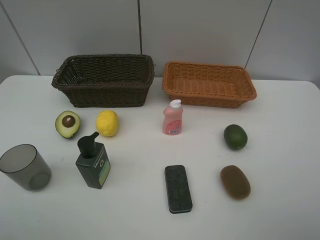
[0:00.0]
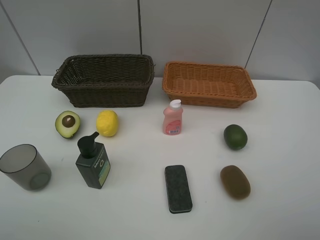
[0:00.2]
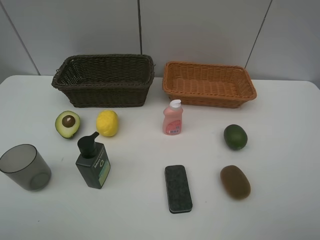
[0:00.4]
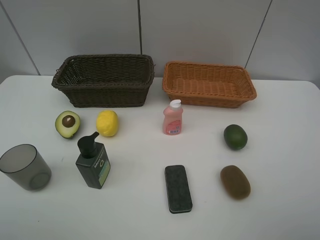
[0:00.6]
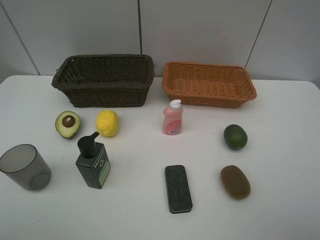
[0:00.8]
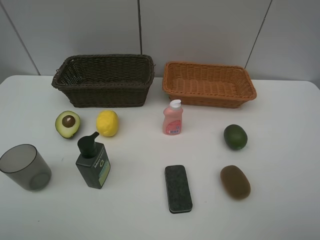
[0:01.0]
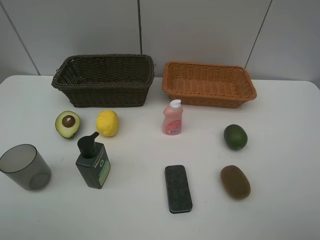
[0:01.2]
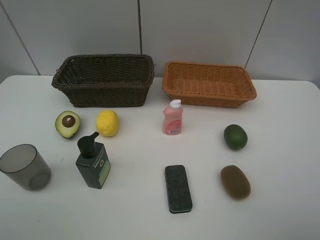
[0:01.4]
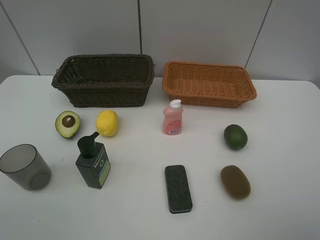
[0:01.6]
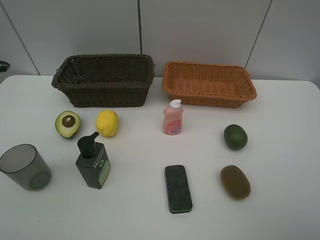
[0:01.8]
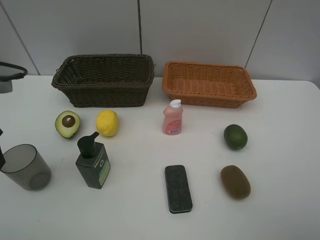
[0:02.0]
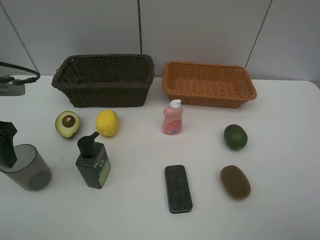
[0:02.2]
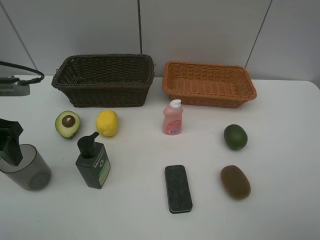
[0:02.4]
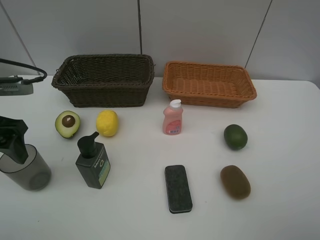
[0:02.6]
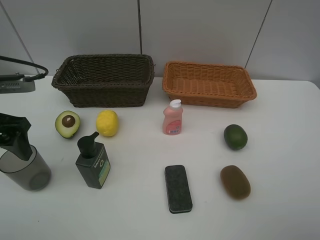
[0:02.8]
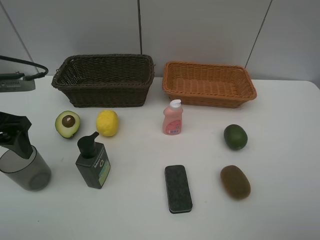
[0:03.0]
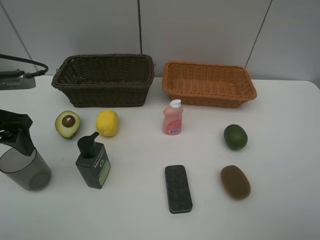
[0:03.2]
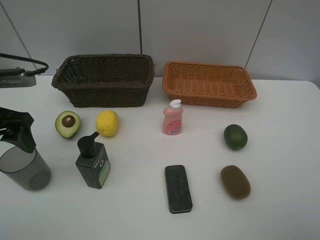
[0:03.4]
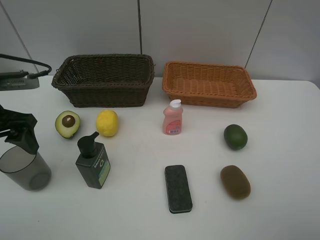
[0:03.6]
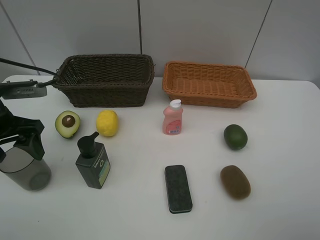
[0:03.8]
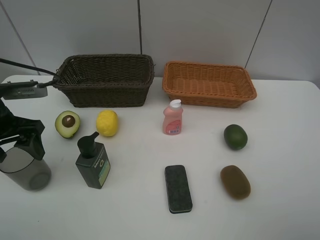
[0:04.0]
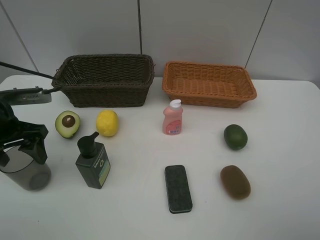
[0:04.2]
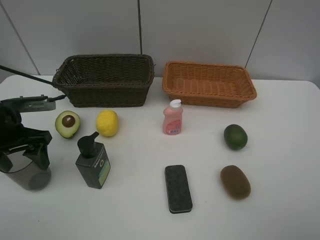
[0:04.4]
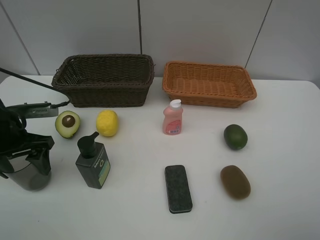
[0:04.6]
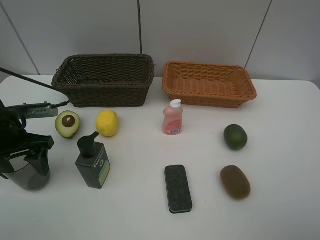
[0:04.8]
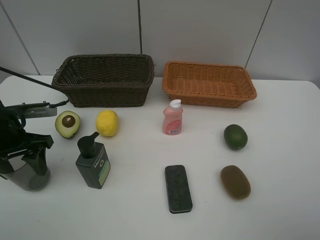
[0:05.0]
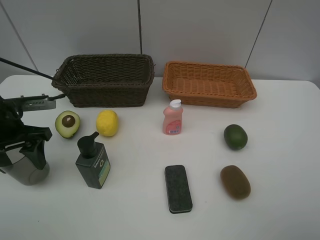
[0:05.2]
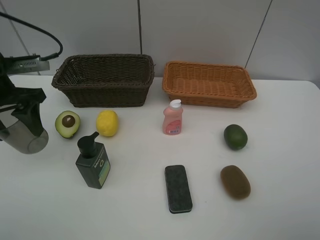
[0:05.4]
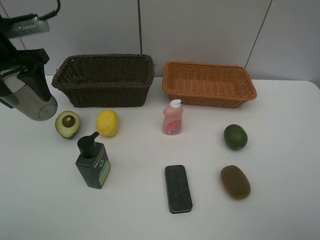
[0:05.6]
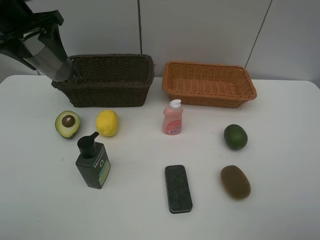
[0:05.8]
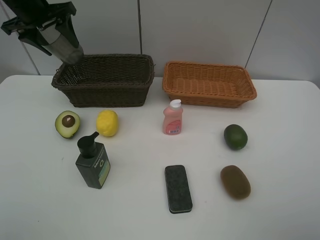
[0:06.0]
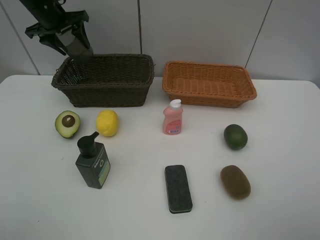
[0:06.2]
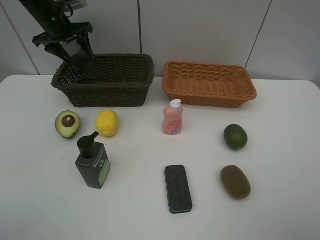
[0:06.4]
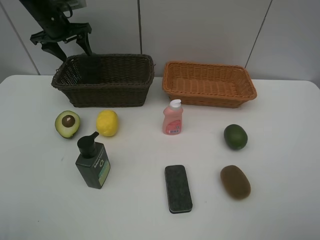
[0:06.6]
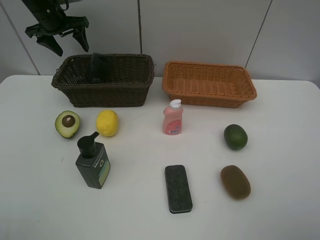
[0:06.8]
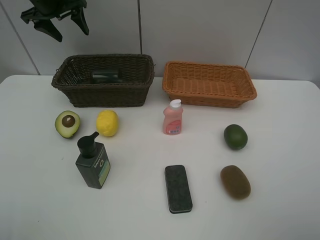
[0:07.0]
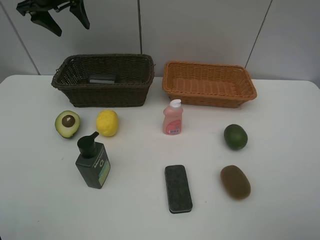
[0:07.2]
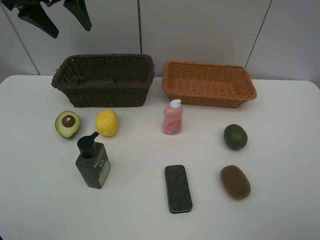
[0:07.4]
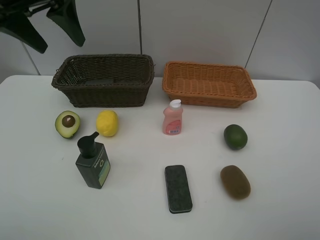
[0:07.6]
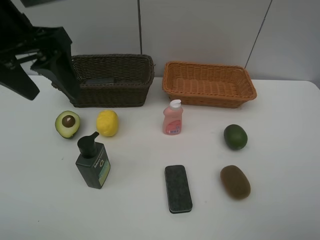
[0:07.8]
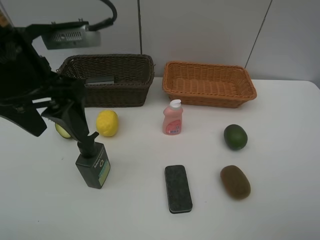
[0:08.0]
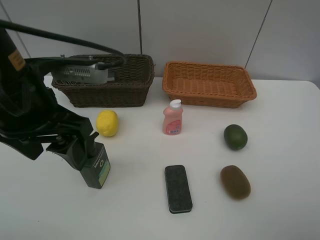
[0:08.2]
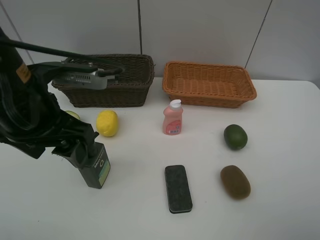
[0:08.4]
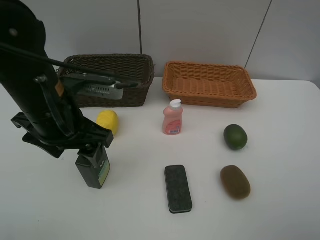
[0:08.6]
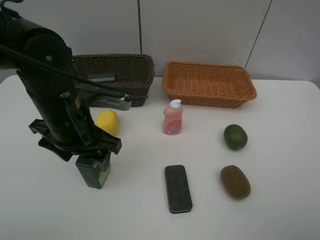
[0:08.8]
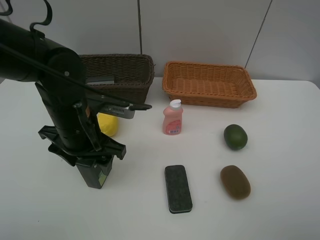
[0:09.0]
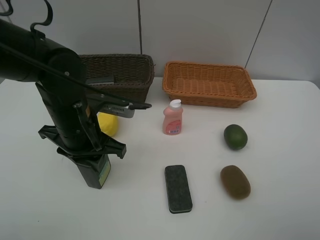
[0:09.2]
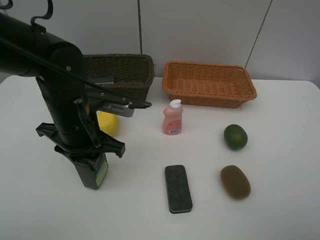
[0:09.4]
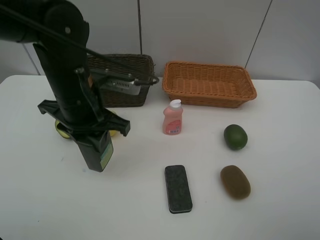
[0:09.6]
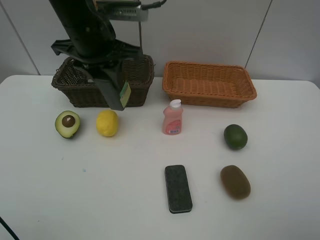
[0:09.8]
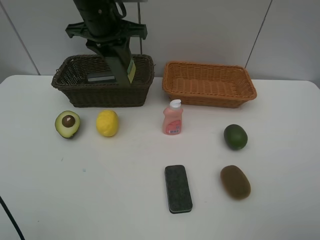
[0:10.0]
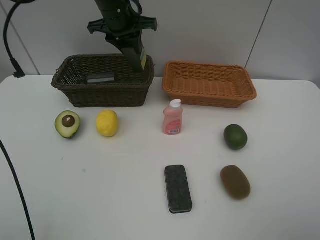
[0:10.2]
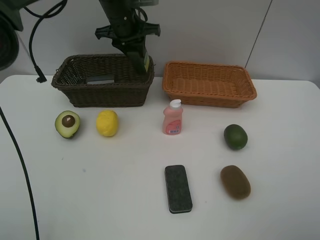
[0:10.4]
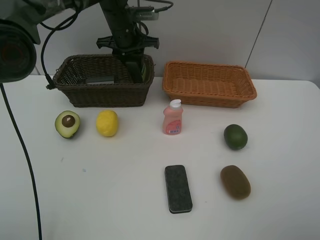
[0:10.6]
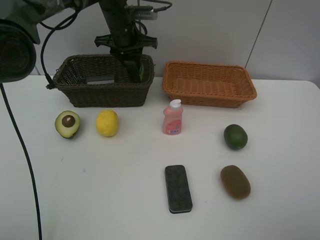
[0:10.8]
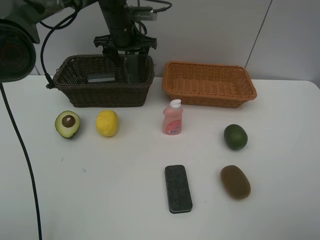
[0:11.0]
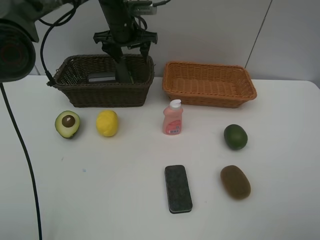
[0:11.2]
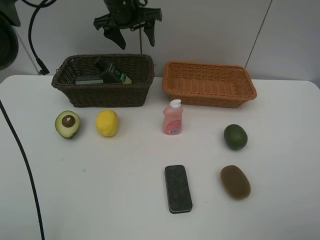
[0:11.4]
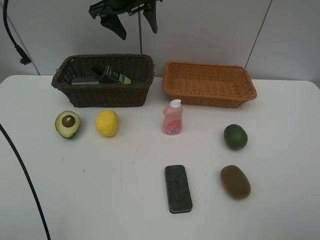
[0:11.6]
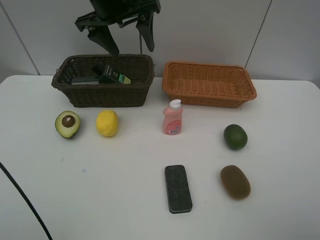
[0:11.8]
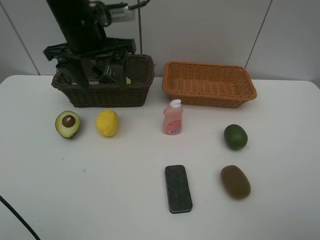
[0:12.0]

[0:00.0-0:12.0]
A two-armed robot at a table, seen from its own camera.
Task of the whole recording: Place multiple objects separately in different baskets.
Step, 0:00.0 to 0:05.2: Pick up gray cup with left gripper.
Step, 0:05.4 to 0:06.6: Place the gray cup in the dark basket with left gripper.
Step, 0:06.8 to 0:09.6: Pick up the hard facial cleanser with left gripper.
Step, 0:09.8 to 0:11.2: Place the hard facial cleanser in the dark basket with left gripper.
0:01.6 to 0:03.0: The left gripper is displaced forward and downward by approximately 10 cm.
0:03.0 to 0:04.4: The left gripper moves downward, approximately 5 cm.
0:04.4 to 0:06.0: The left gripper travels forward and upward by some 25 cm.
0:06.0 to 0:07.6: The left gripper travels backward, upward and to the right by about 15 cm.
0:07.6 to 0:09.0: The left gripper travels downward, to the right and backward by some 20 cm.
0:09.0 to 0:10.4: The left gripper is displaced forward by roughly 25 cm, and closes its fingers.
0:10.4 to 0:12.0: The left gripper travels backward by about 15 cm, and opens up.

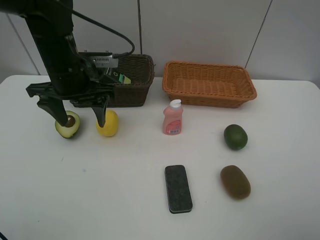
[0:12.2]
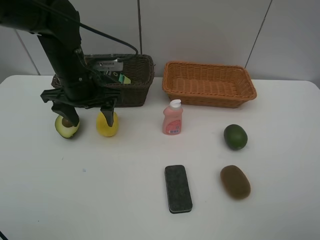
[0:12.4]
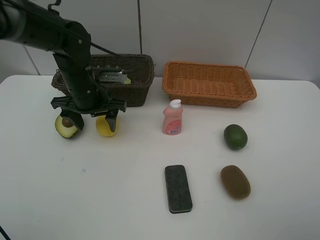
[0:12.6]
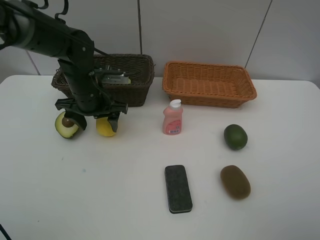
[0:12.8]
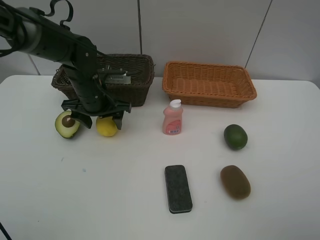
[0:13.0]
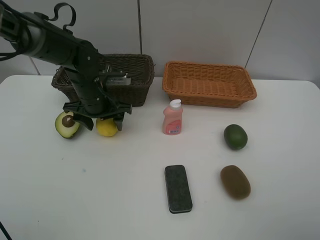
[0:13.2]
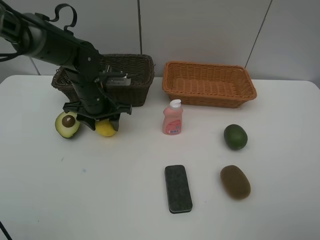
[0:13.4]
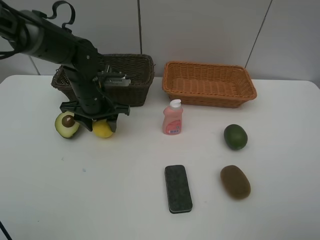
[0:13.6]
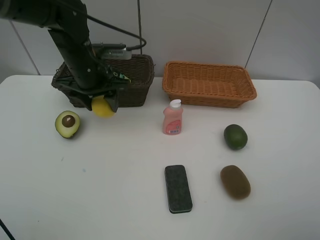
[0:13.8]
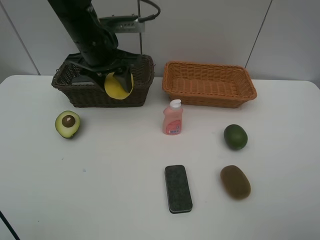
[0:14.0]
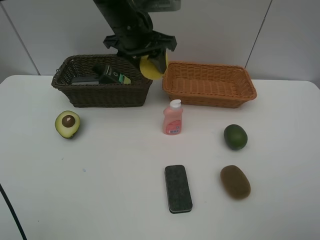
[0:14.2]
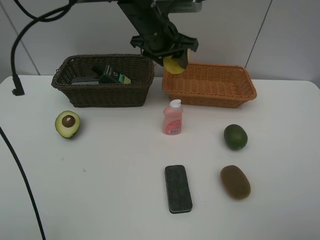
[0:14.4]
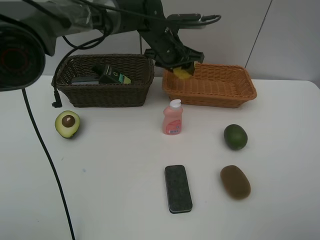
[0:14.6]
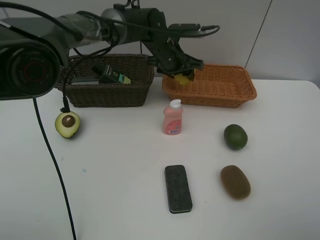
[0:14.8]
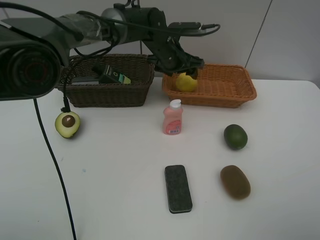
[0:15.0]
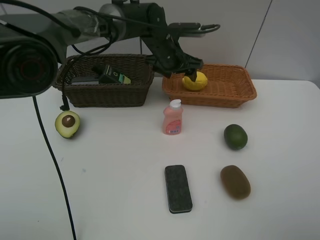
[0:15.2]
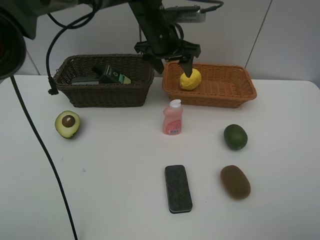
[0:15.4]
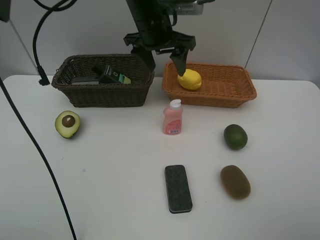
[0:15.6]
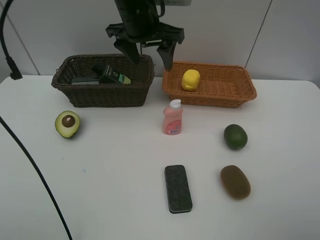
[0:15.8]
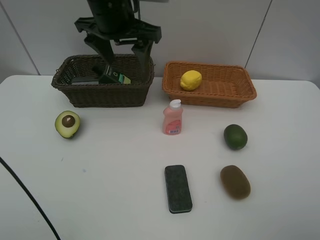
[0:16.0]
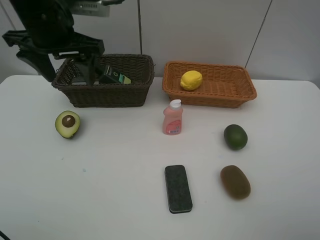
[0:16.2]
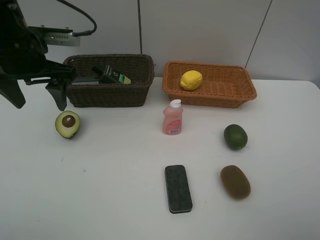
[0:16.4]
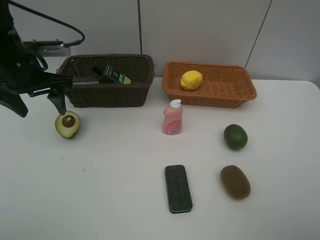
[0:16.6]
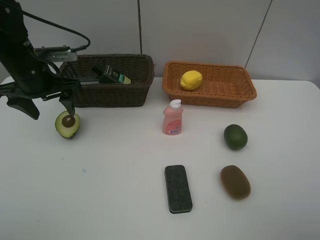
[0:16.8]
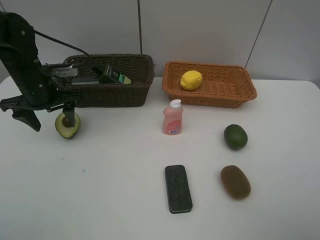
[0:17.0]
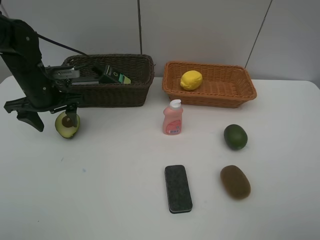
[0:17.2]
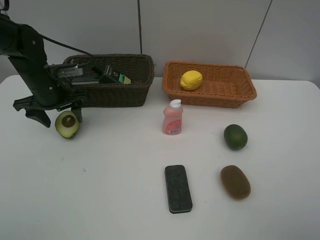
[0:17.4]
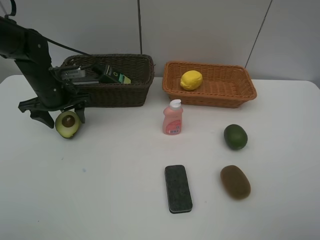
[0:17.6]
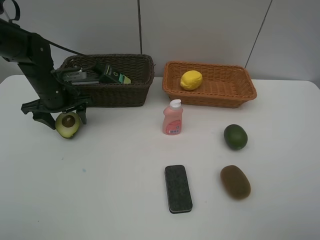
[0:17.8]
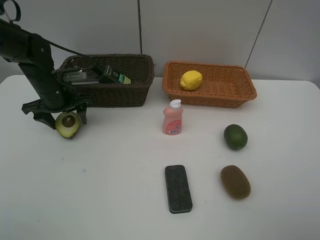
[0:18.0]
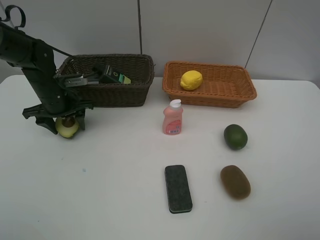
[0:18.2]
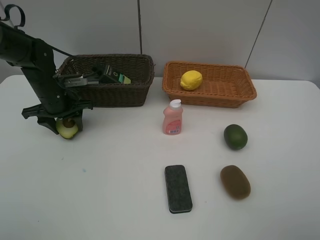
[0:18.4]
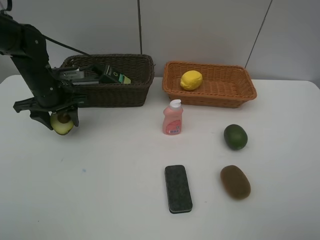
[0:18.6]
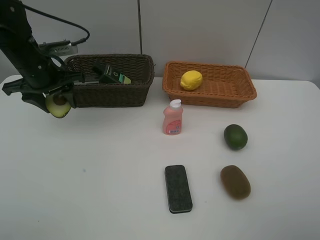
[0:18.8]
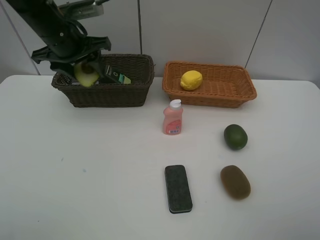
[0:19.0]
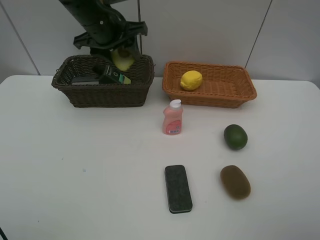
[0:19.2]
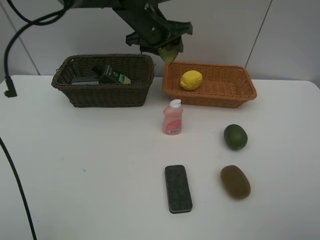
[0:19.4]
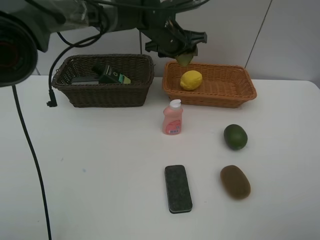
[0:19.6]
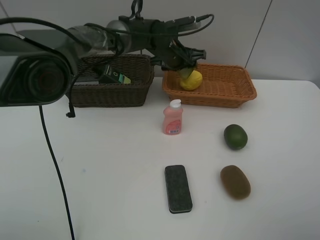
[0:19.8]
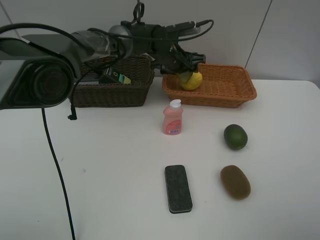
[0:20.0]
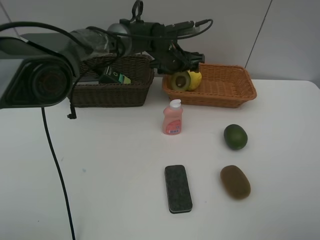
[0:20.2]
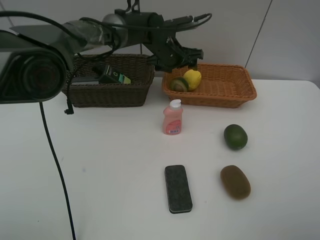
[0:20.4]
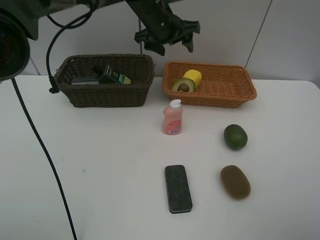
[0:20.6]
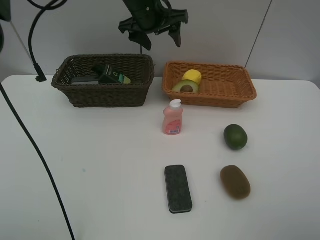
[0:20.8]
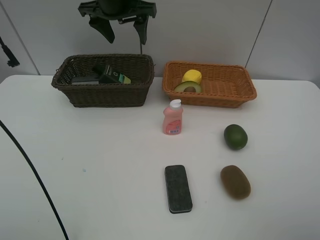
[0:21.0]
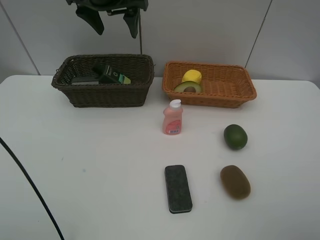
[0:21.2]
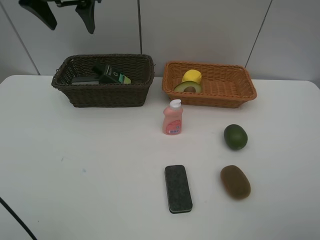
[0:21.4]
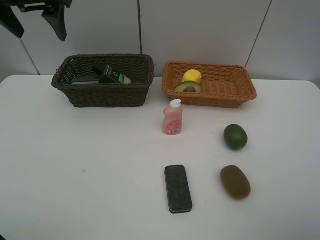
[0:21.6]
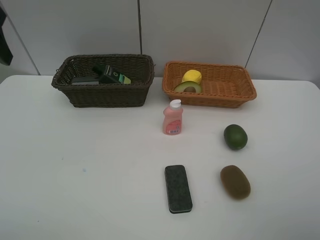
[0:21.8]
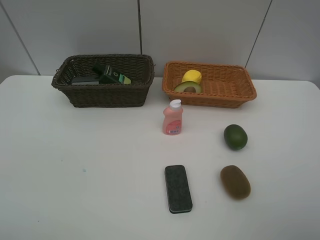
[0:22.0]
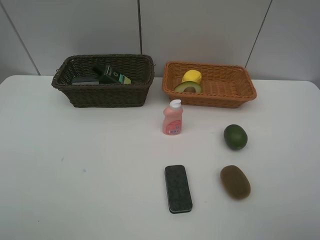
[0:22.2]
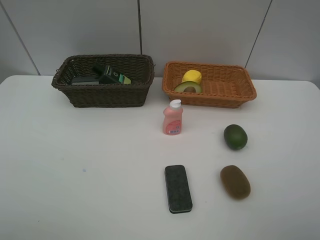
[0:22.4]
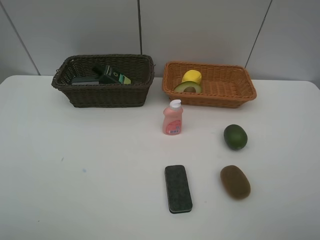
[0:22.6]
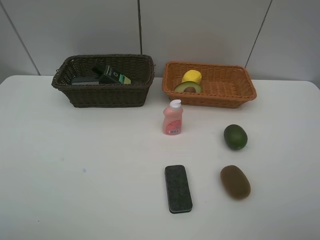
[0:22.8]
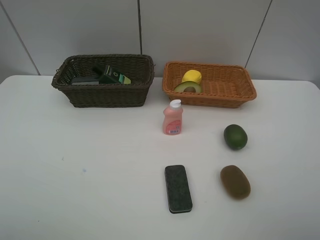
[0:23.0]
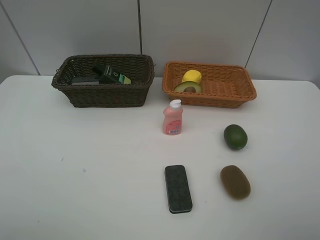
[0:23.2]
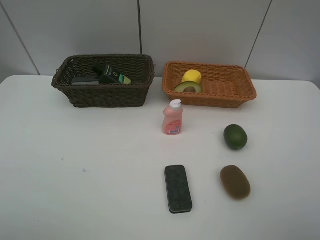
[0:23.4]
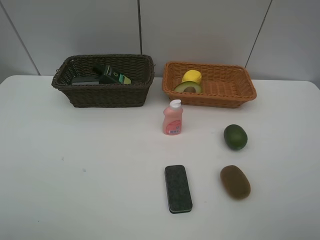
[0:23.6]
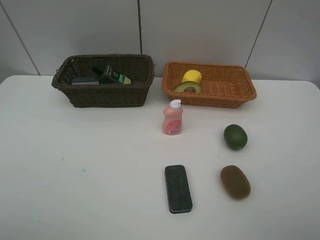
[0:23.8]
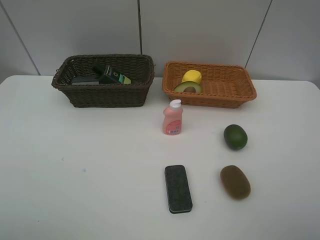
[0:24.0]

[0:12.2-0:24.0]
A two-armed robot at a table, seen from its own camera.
Task of the whole recording: Place multiple objects separately in different baskets.
Step, 0:12.2 to 0:13.6: Pick up the lemon with left gripper.
Step, 0:13.8 to 0:15.2: Place the lemon in the light basket with left gripper.
Step, 0:15.4 to 0:18.6: Pick up the avocado with left gripper.
Step, 0:18.8 to 0:20.4: Place the avocado in the light basket with left gripper.
0:12.2 to 0:13.6: The left gripper shifts some 10 cm downward, and closes.
0:13.6 to 0:15.2: The left gripper goes some 20 cm to the right and forward, and opens up.
0:15.2 to 0:16.6: The left gripper moves to the left and backward, roughly 30 cm.
0:16.6 to 0:18.2: The left gripper travels downward and forward by some 10 cm.
0:18.2 to 0:19.6: The left gripper is displaced to the right by some 25 cm.
0:19.6 to 0:21.0: The left gripper travels upward and to the left by roughly 15 cm, and opens up.
0:21.0 to 0:22.6: The left gripper moves backward and to the left, some 50 cm.
